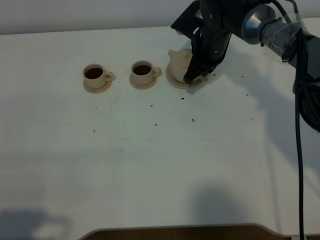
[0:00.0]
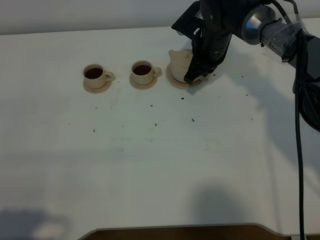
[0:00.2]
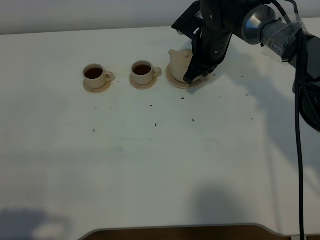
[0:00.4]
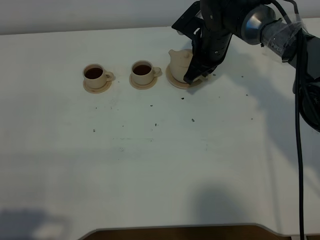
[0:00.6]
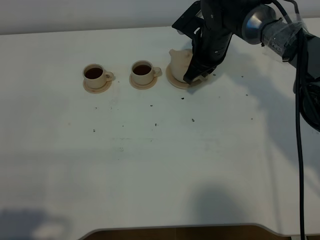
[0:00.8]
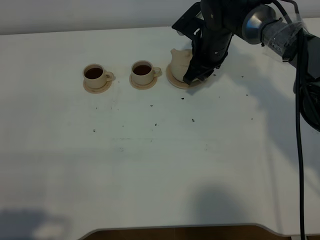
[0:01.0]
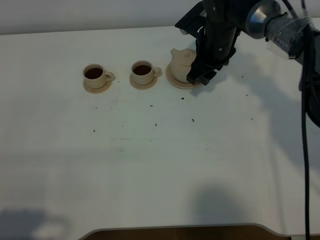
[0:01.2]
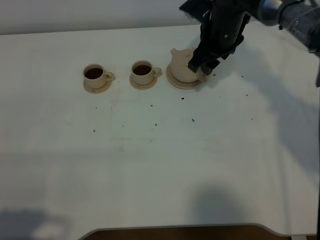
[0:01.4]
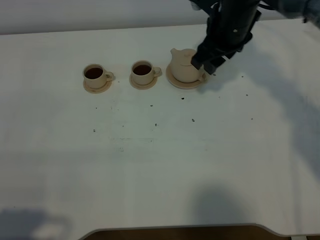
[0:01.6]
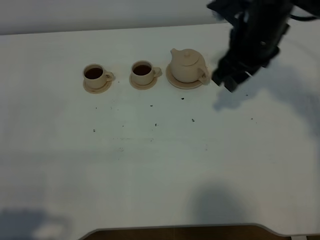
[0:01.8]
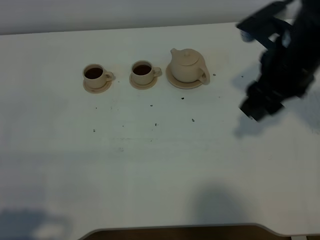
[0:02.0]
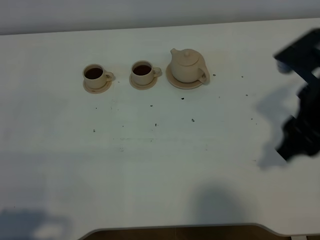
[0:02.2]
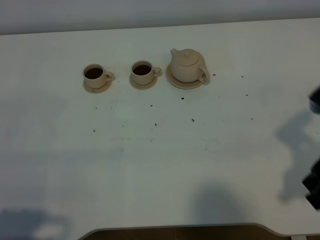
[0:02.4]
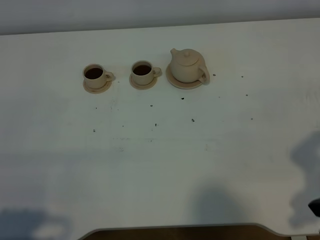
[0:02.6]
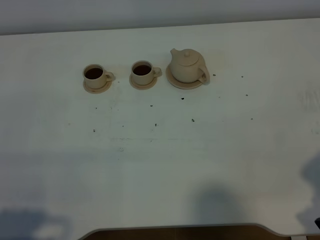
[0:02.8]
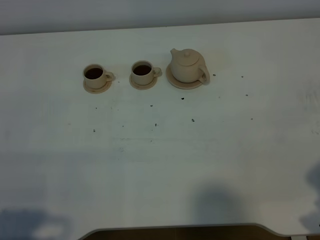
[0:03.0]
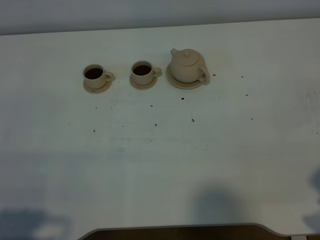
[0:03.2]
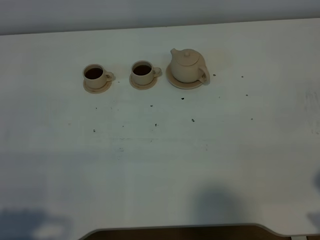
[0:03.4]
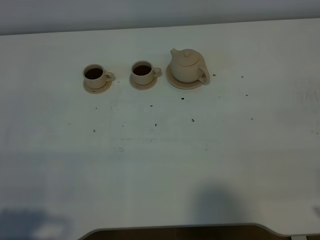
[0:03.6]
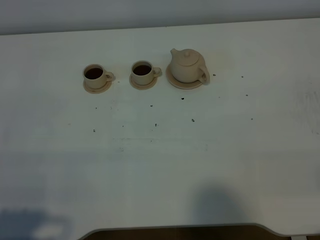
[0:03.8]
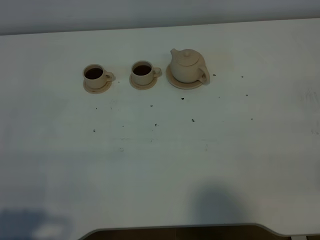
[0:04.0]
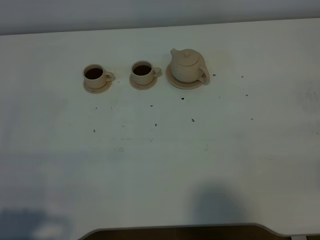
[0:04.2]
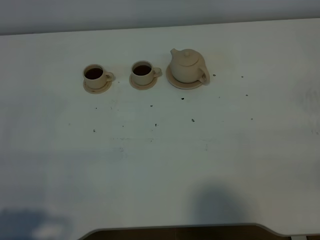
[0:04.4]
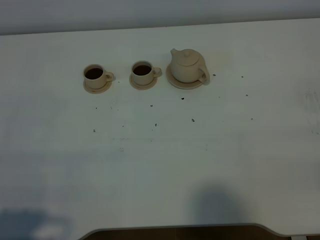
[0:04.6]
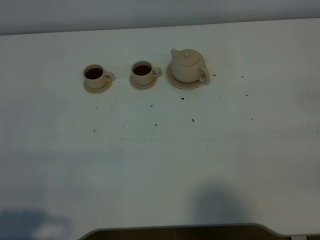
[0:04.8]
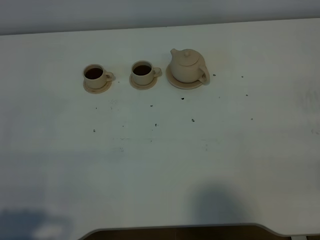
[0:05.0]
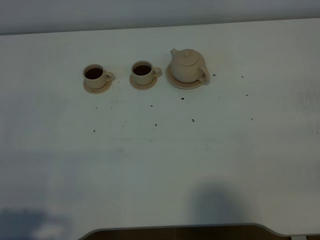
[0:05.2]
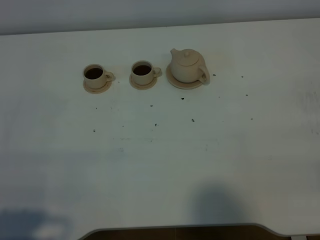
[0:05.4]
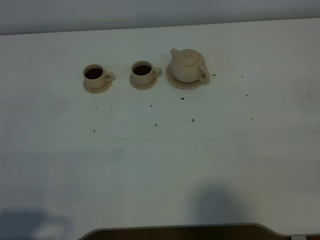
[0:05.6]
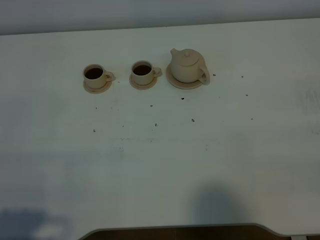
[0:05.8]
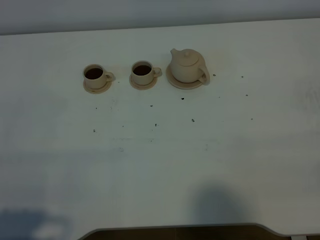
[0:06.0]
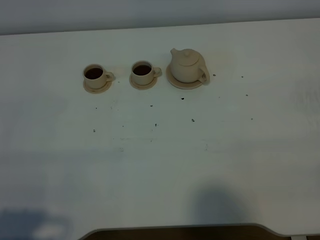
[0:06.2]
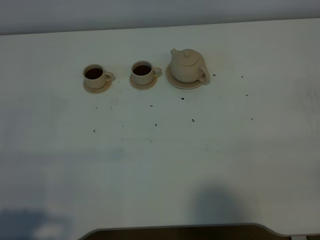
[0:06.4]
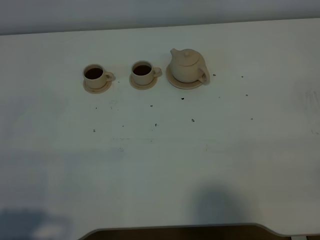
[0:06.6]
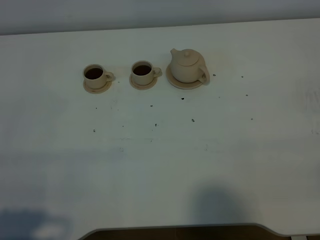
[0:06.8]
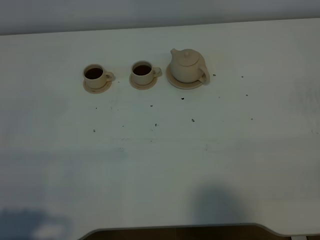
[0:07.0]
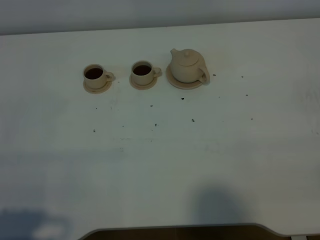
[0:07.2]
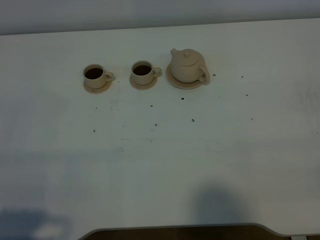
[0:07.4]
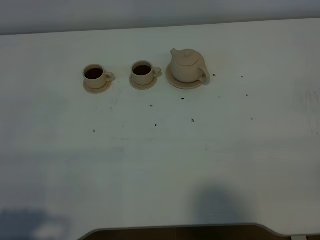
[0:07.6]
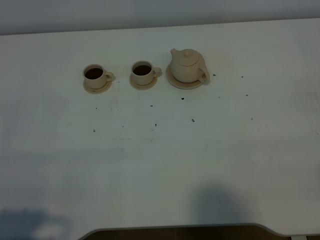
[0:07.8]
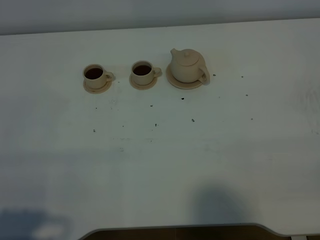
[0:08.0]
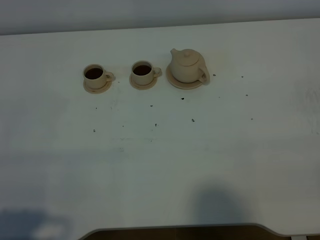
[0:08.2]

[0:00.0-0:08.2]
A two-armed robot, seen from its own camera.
Task of the whole recording: grasp the brown teapot and pour the tea into the two brown teacups one by one, put the brown teapot back in its original place.
0.0 to 1.6 s: The right gripper heads upward and backward, covering roughly 10 cm, and opens up.
1.6 to 3.2 s: The right gripper is displaced backward and to the right by about 35 cm.
6.6 to 8.2 s: Both grippers stay put.

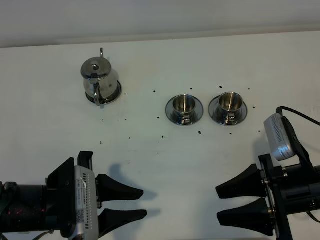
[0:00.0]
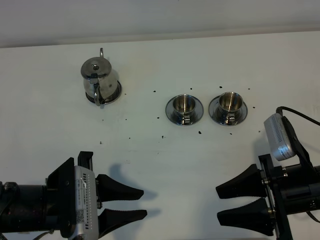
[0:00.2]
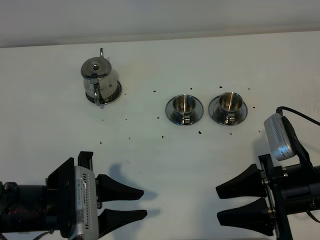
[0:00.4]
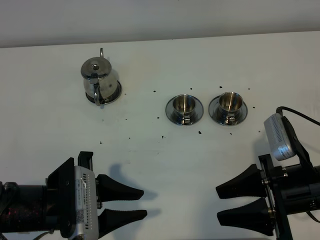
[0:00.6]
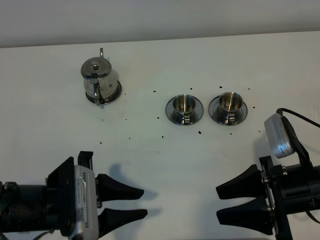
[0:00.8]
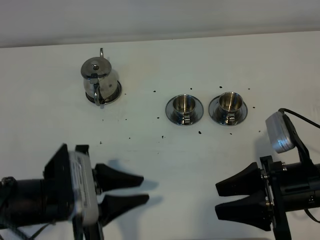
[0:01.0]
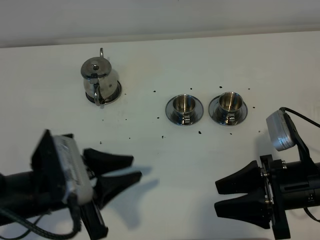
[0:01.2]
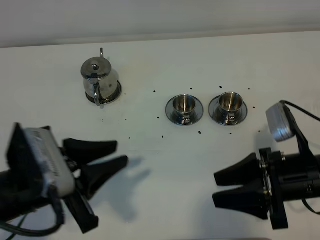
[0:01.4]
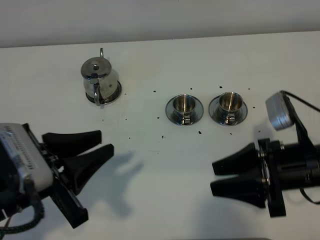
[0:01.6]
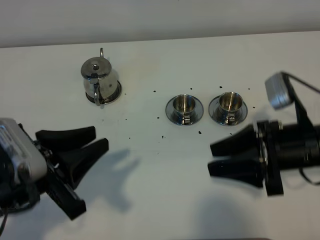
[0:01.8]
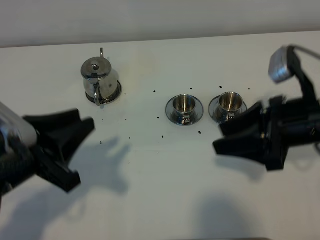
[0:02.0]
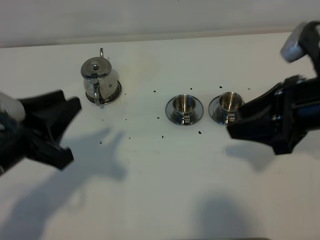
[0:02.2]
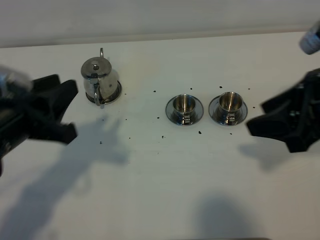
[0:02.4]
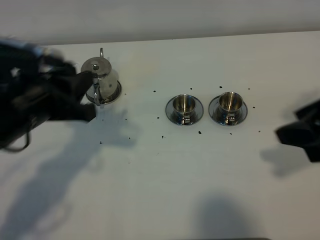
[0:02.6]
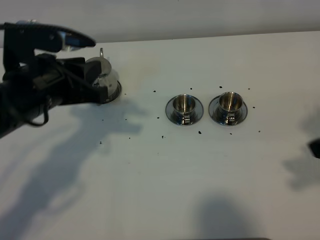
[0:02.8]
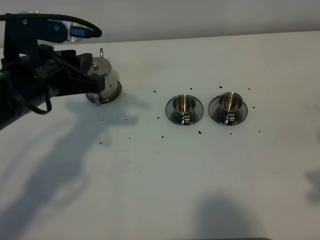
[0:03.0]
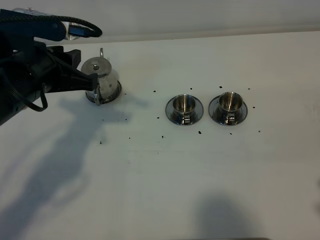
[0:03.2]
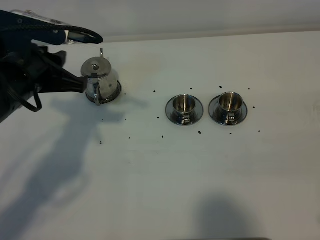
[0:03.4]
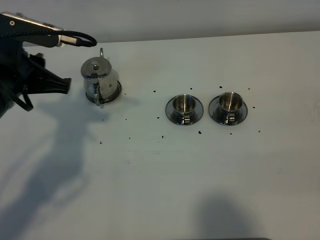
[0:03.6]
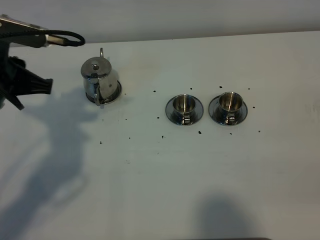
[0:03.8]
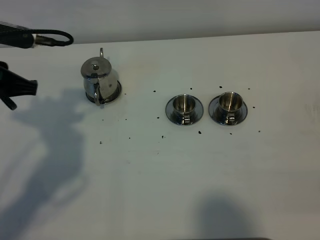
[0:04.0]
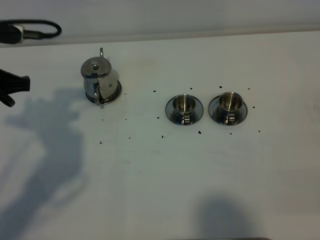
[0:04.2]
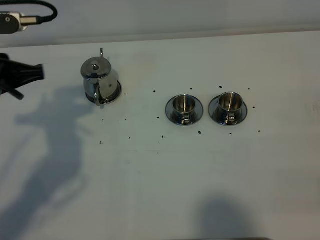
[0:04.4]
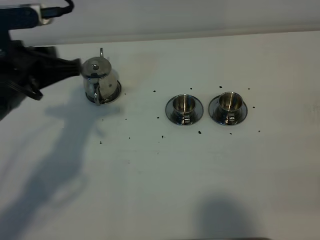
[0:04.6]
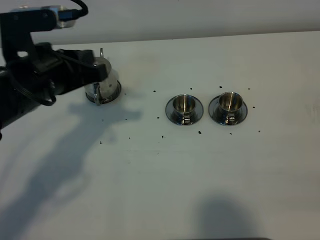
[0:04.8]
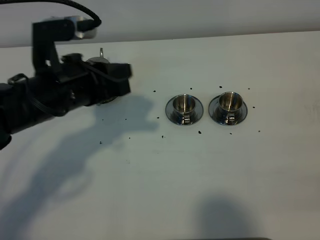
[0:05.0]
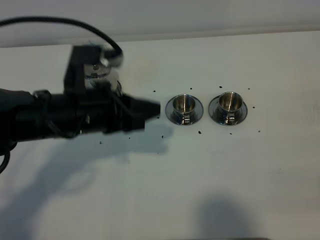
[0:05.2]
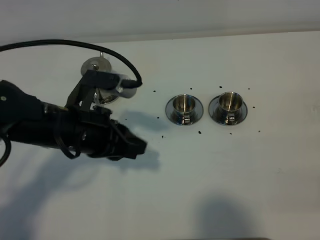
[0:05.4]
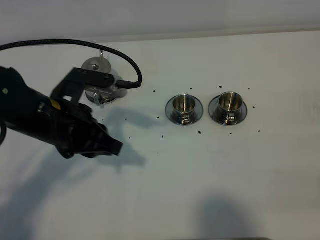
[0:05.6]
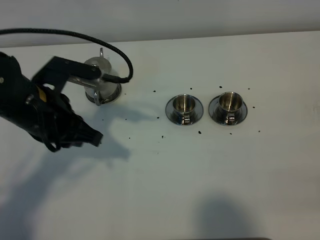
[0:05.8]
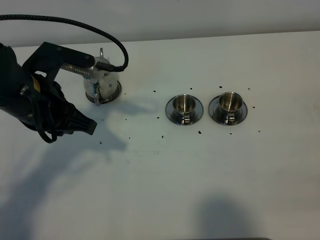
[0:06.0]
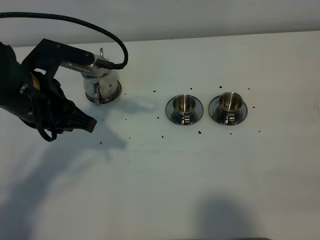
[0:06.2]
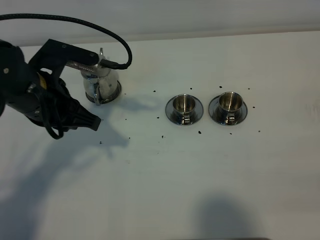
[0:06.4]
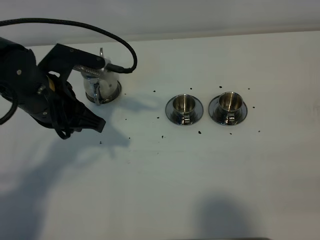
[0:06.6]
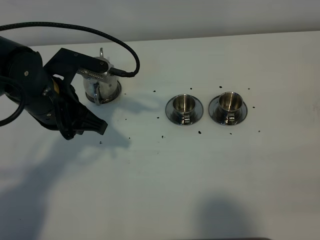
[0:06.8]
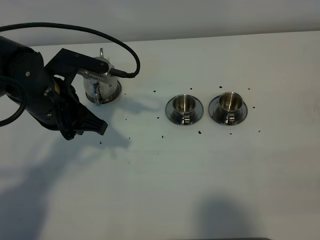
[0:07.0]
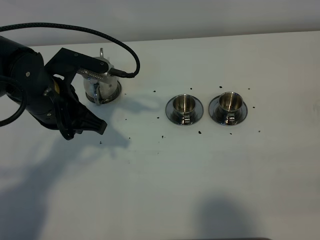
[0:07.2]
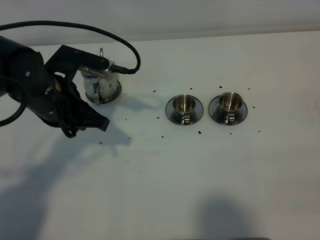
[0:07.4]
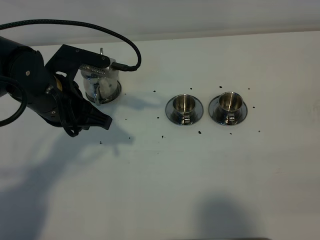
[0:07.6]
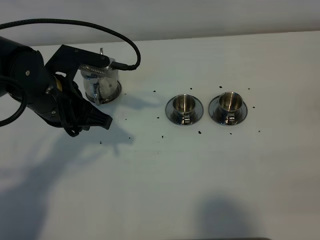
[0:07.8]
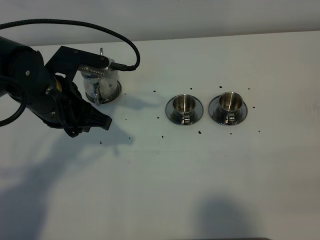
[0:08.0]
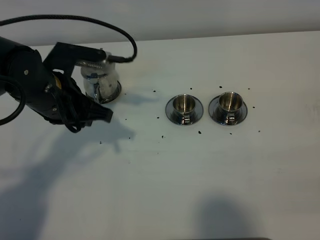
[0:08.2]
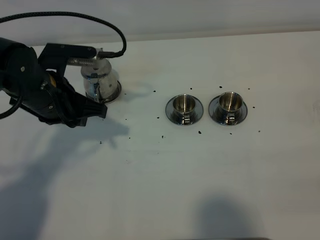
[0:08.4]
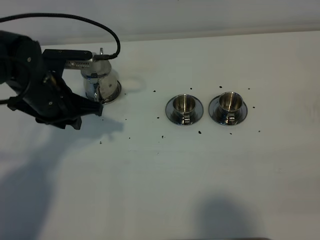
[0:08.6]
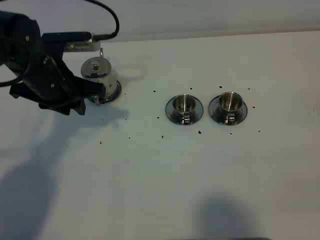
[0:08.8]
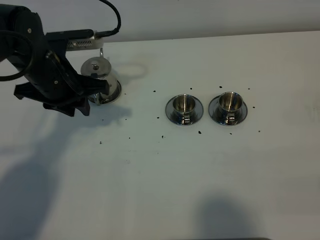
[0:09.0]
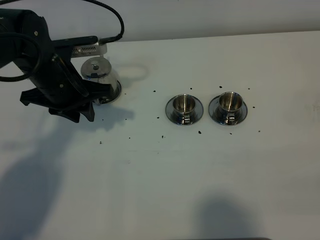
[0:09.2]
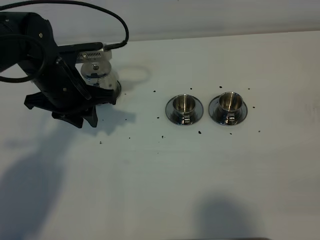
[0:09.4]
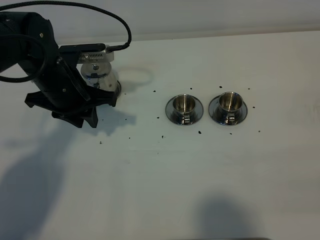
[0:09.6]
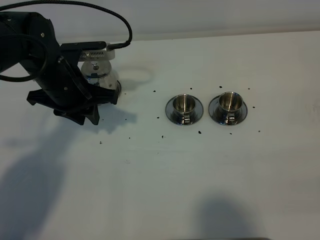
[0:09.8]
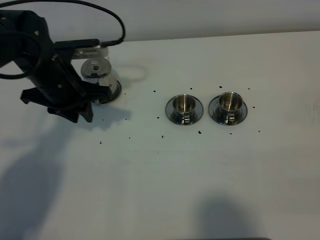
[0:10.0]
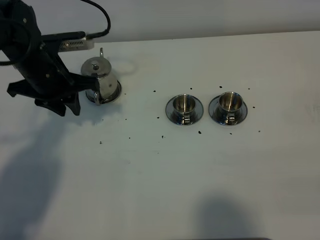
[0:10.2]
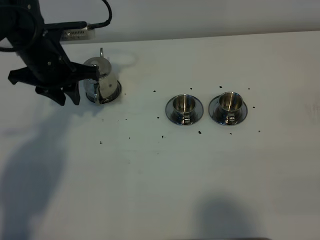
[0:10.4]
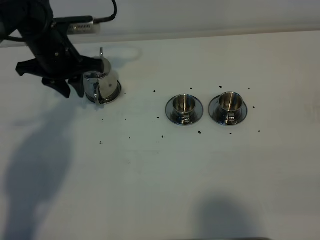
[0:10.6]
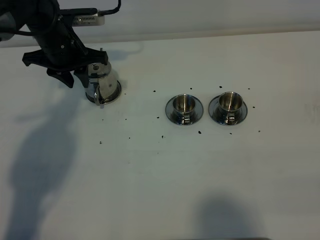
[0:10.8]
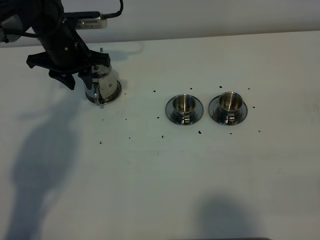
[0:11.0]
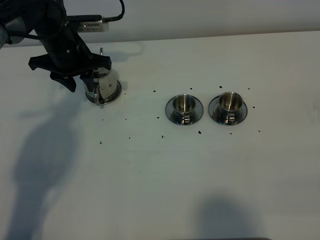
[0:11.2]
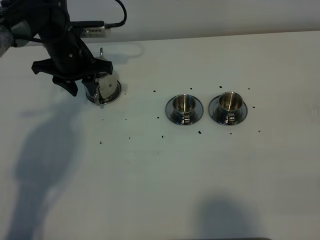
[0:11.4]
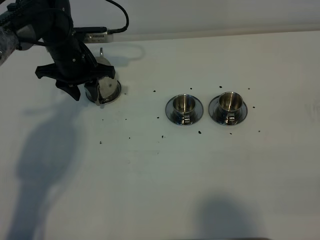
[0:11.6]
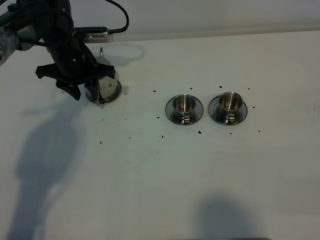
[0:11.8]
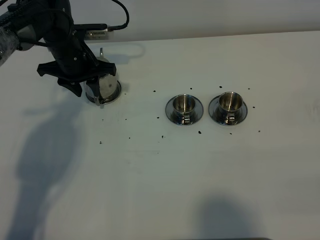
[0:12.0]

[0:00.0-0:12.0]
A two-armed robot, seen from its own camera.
Task of the whole recording: grasp the stainless steel teapot and pour the tea into the two stainless steel teacups one by one, put the stainless steel teapot back in its original place.
0.0 to 1.6 s: The left gripper heads upward, covering about 5 cm.
1.6 to 3.0 s: The right gripper moves upward, to the right and backward, roughly 20 cm; the left gripper is displaced forward by some 15 cm.
3.0 to 4.4 s: The left gripper moves to the left, approximately 5 cm.
4.4 to 6.0 s: The left gripper is displaced to the right by about 5 cm.
6.0 to 7.6 s: The grippers move only a little.
7.6 to 9.0 s: The left gripper heads forward, covering some 5 cm.
9.0 to 10.4 s: The left gripper is displaced forward by roughly 5 cm.
10.4 to 12.0 s: The left gripper travels forward and downward by some 10 cm, and opens up.

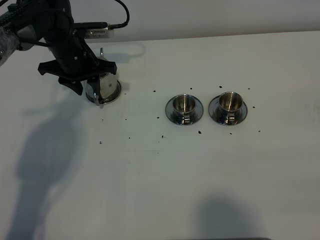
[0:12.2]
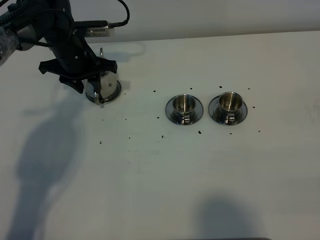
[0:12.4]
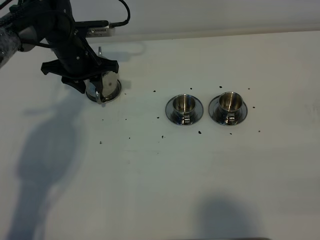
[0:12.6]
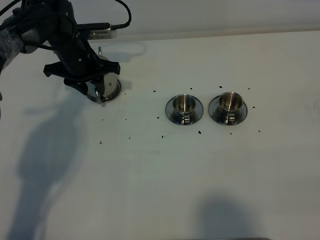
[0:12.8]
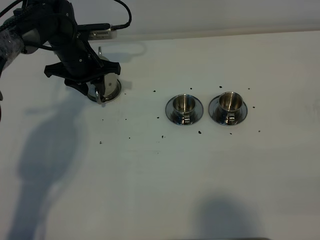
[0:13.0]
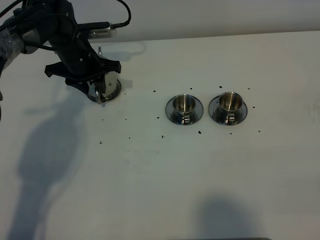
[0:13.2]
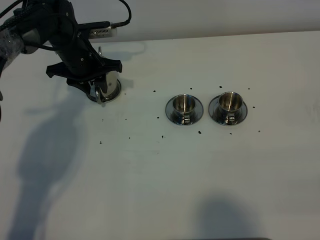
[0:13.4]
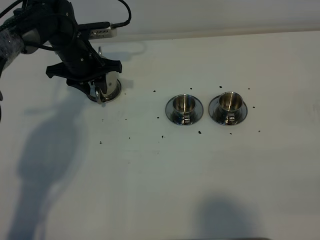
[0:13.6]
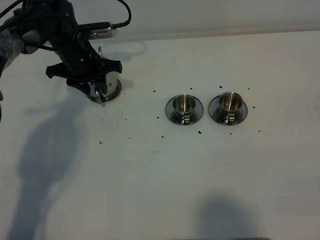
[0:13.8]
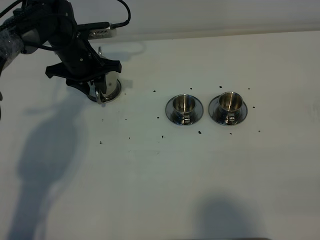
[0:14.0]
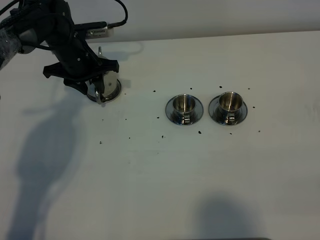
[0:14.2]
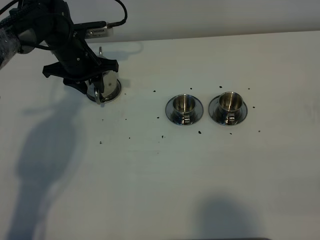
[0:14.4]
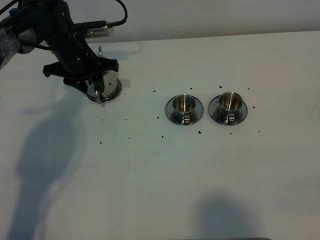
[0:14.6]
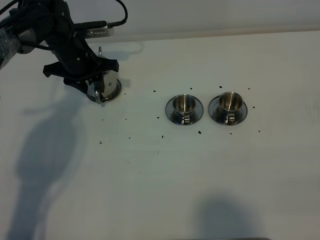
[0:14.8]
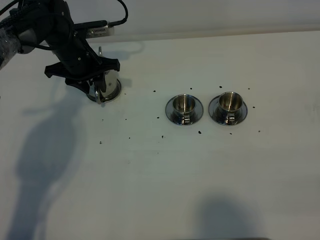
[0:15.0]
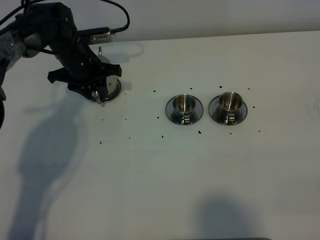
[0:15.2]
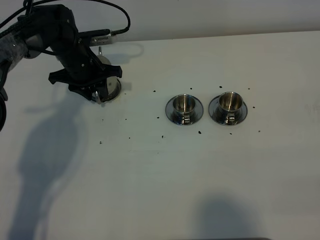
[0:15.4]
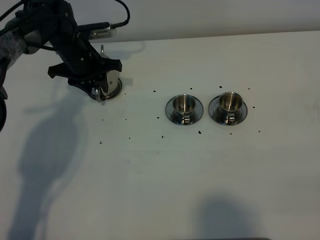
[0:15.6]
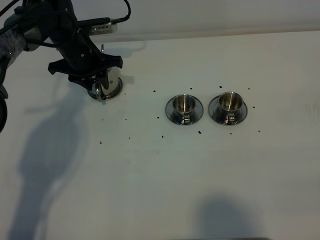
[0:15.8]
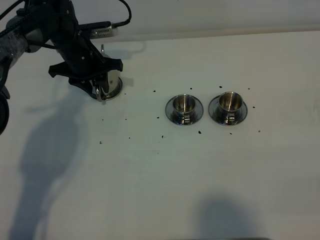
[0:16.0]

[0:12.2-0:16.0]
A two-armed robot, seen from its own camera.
Task of the whole recording: grasp the stainless steel teapot and pour the tea into the two stainless steel teacups one by one, put the stainless steel teapot back in its original place.
12.2 to 13.4 s: The two grippers keep their place.
13.4 to 14.8 s: Both grippers stay put.
14.8 to 16.0 s: The grippers move only a little.
